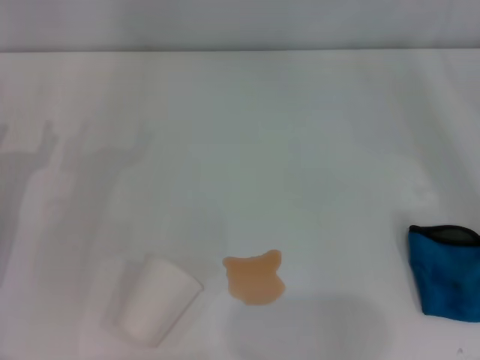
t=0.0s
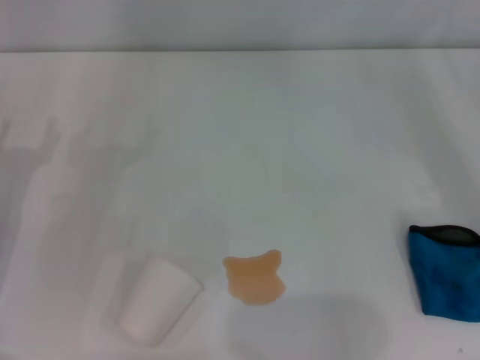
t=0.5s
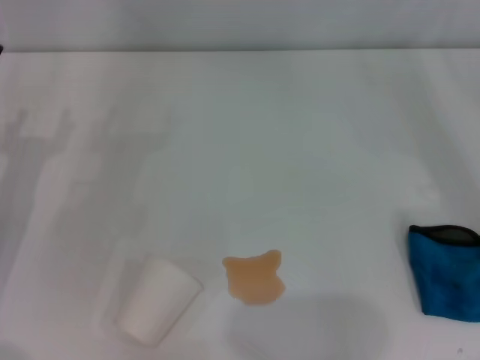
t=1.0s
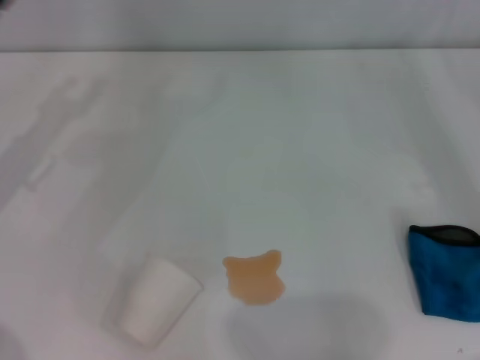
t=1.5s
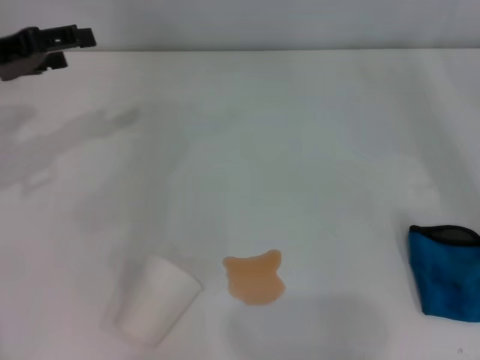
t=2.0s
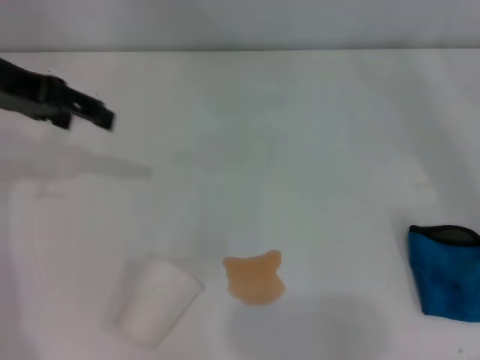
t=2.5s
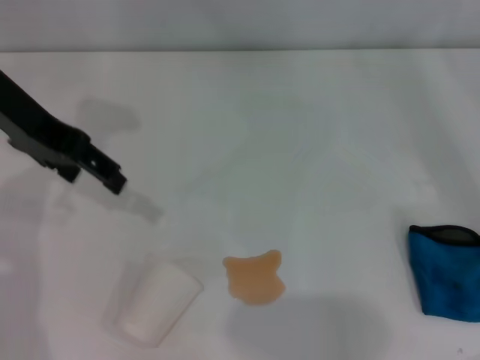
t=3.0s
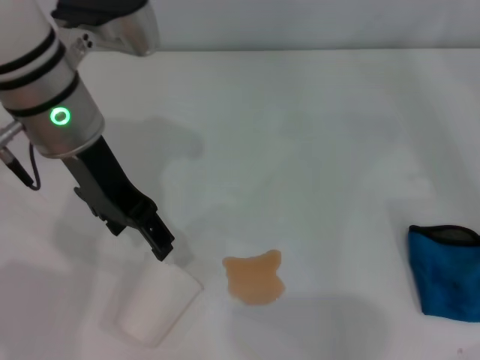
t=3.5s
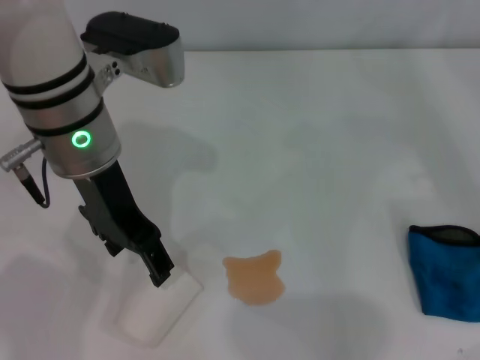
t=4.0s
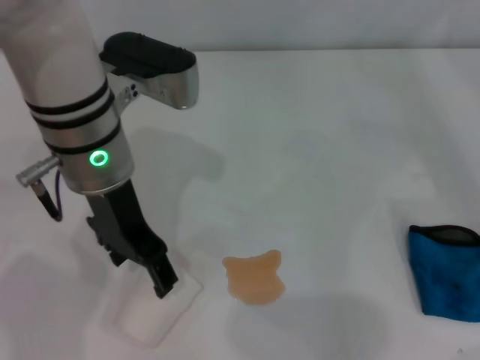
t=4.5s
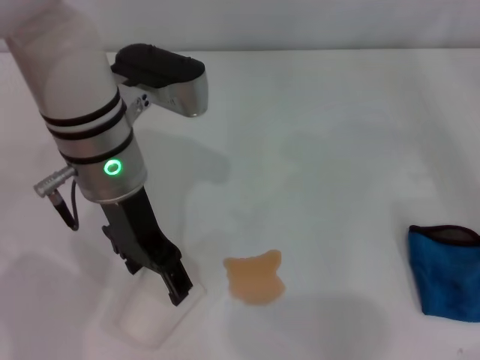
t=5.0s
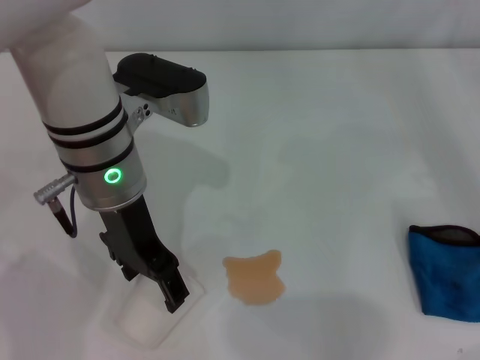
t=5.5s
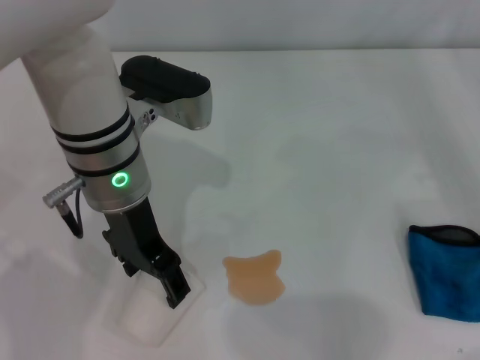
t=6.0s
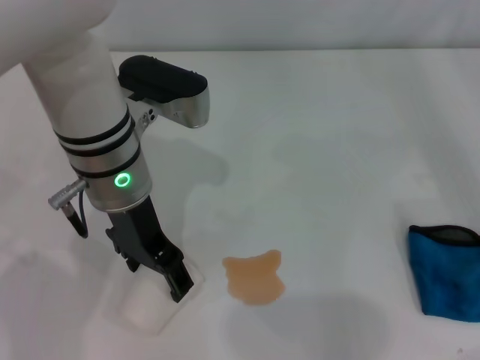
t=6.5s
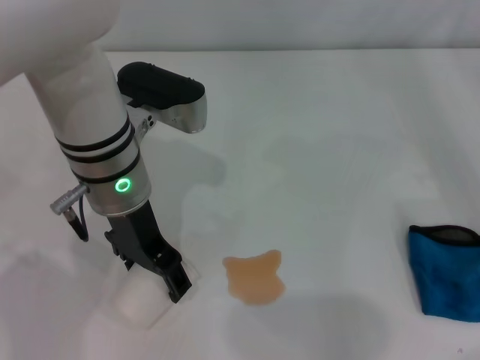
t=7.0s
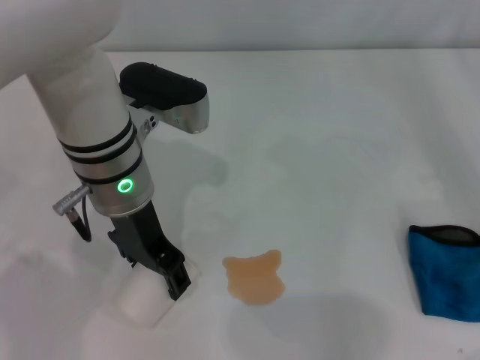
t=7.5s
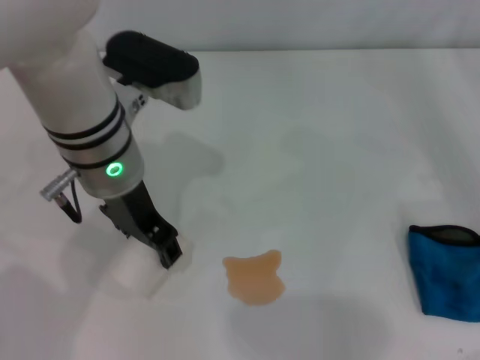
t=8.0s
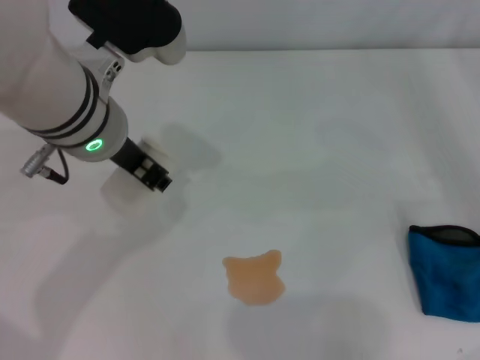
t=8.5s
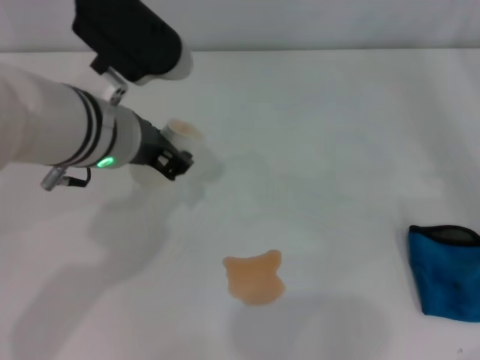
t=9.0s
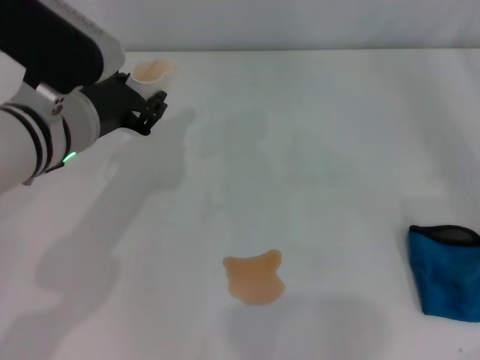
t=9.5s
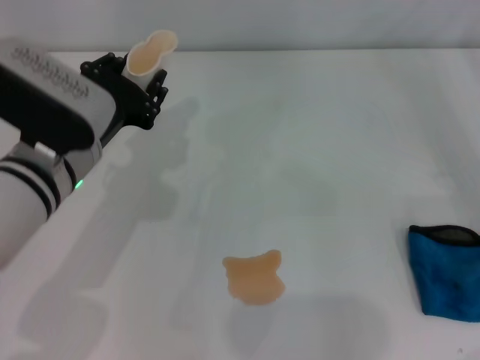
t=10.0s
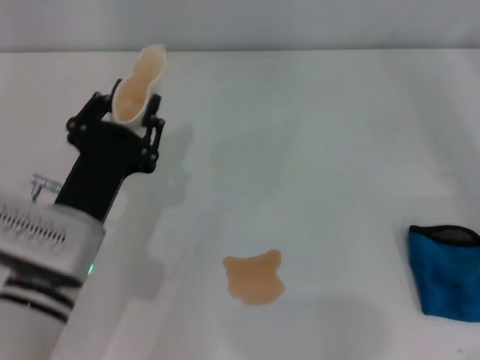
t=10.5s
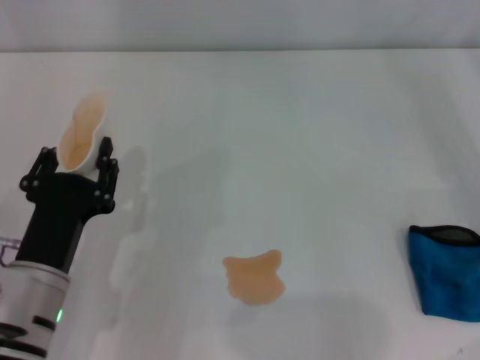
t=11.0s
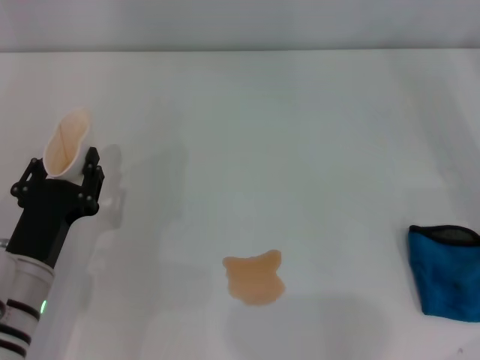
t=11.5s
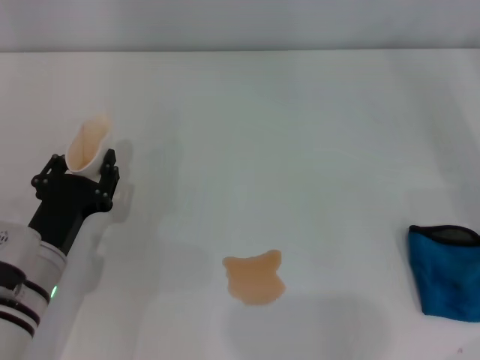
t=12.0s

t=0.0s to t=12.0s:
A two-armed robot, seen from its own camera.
Step, t=0.0s to t=6.5s: Grasp the paper cup with the left gripper.
t=0.0s to t=2.0s: The left gripper heads upward and forward, covering about 15 cm.
t=2.0s to t=4.0s: The left gripper travels to the right by about 20 cm.
t=4.0s to t=6.0s: The grippers move only a little.
t=6.0s to t=8.0s: The left gripper closes its fingers.
t=8.0s to t=10.0s: The left gripper goes some 5 cm to the left, and closes up.
t=10.0s to t=12.0s: The left gripper goes about 15 cm downward and backward.

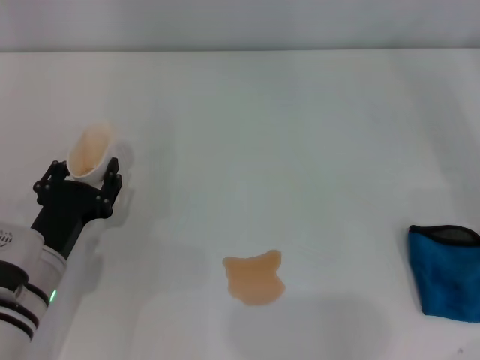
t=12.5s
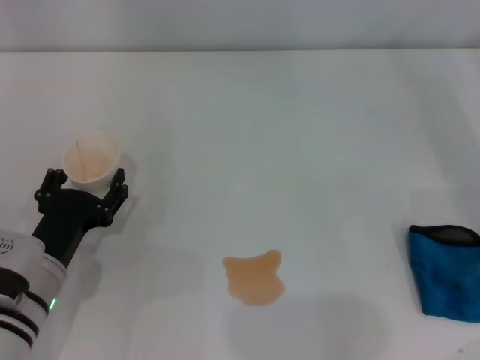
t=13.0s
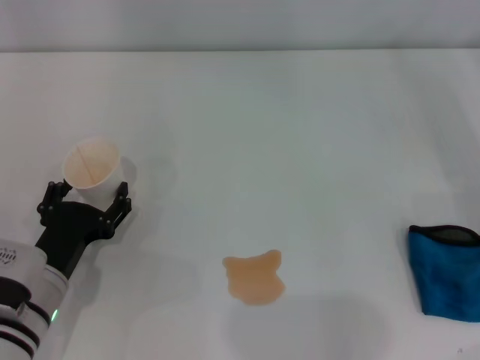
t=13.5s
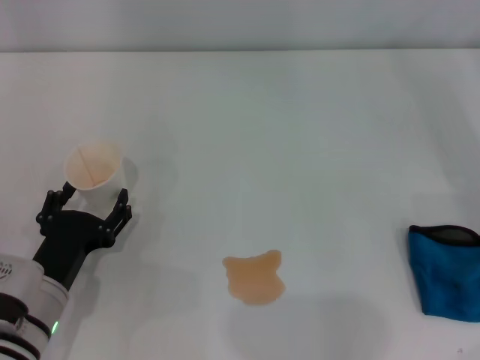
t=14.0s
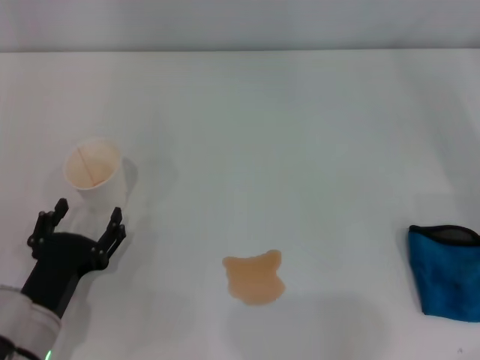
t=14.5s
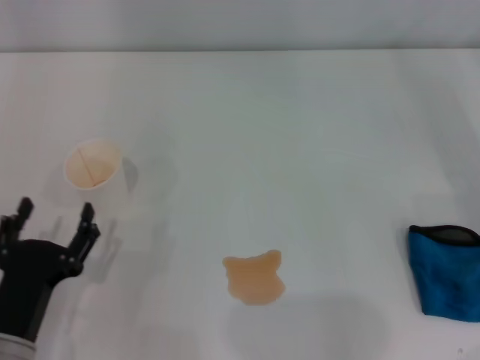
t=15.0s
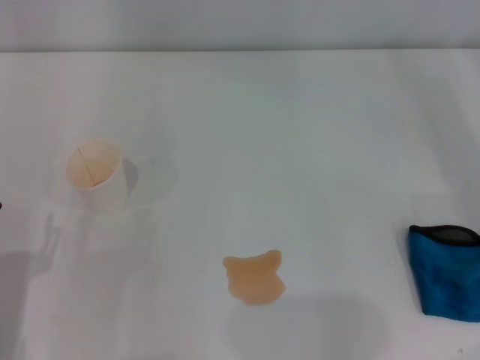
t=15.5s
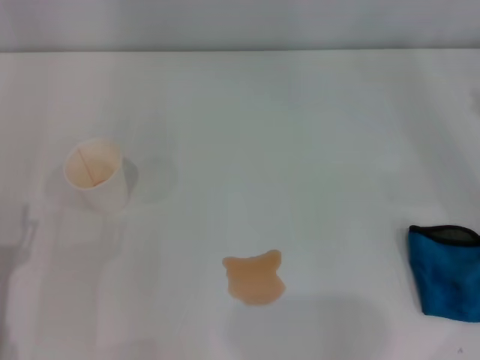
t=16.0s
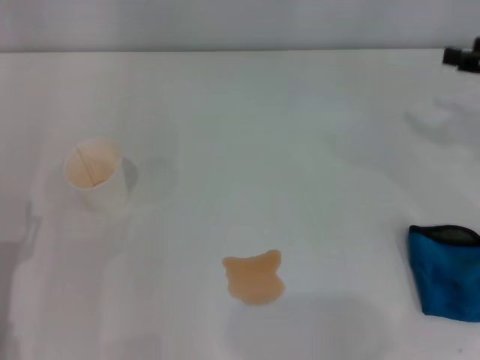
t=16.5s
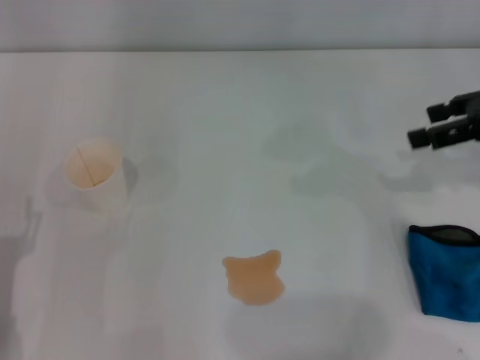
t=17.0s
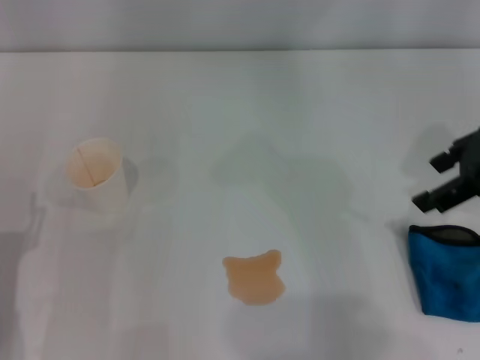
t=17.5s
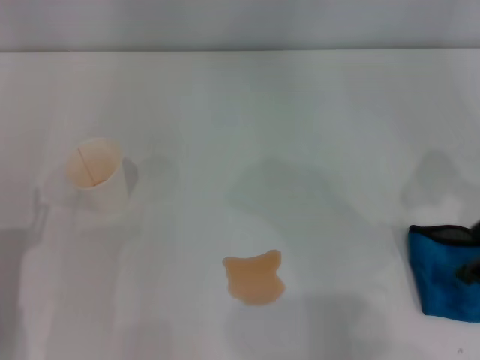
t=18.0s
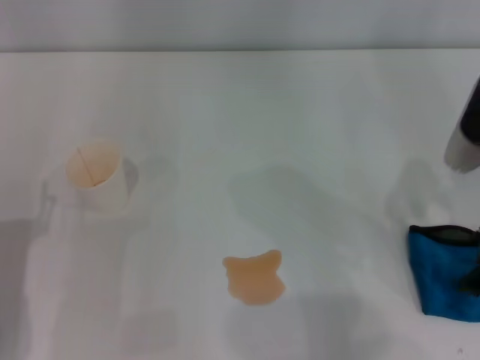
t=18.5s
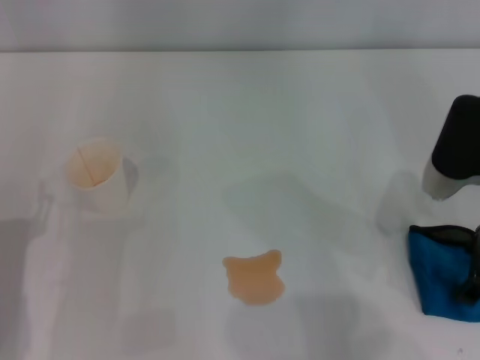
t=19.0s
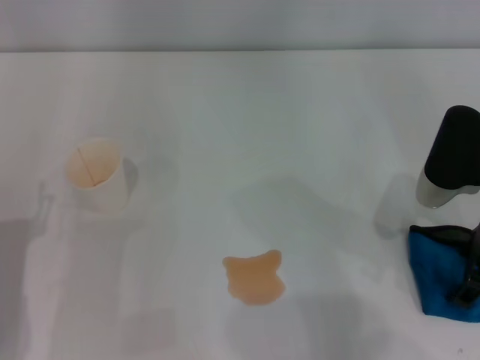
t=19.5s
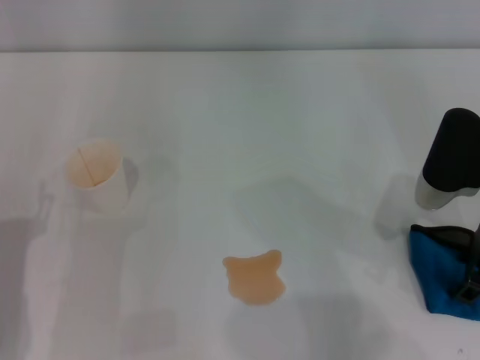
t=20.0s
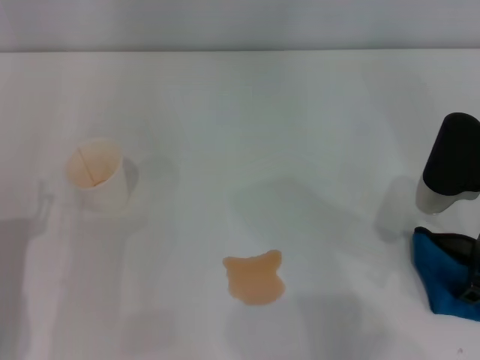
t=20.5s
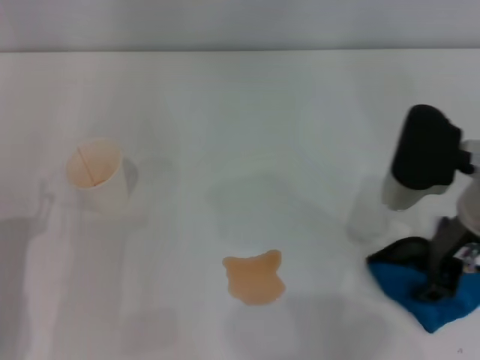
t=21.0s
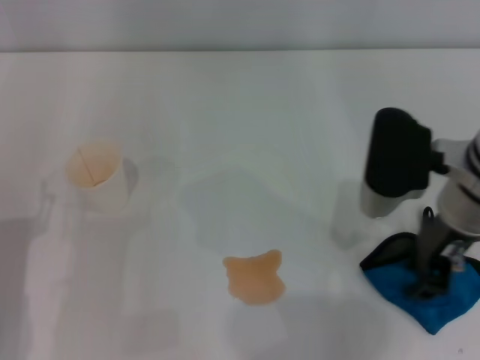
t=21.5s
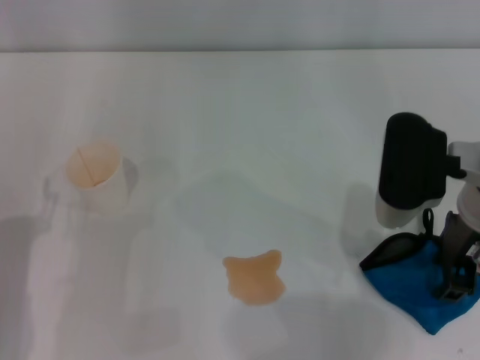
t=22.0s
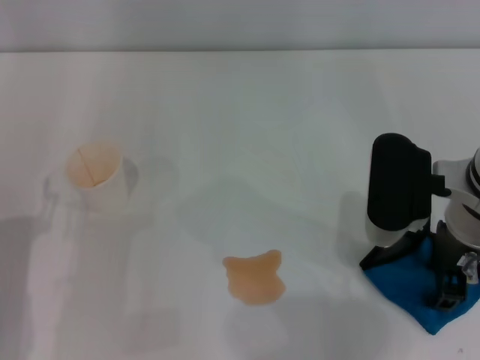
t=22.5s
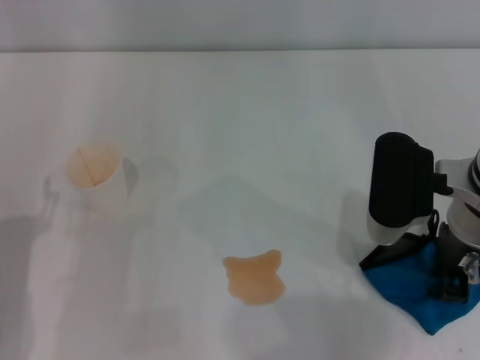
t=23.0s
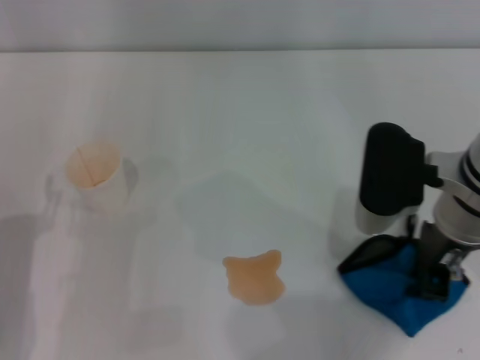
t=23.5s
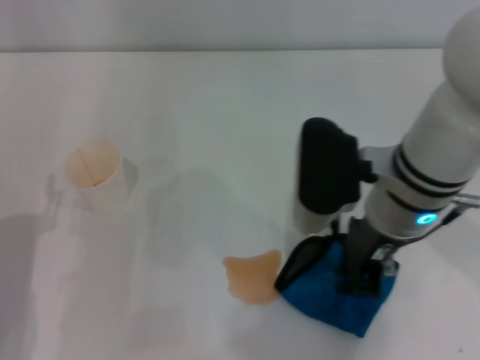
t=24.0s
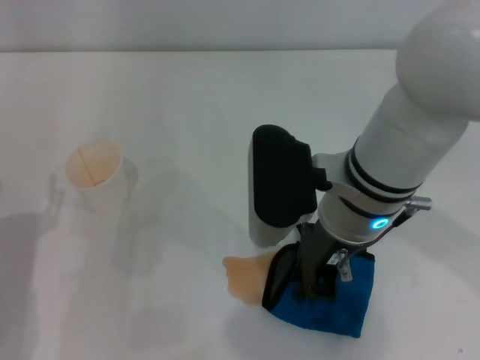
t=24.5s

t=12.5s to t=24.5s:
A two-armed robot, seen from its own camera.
Step, t=13.5s to t=20.0s: Grasp the rag with the right gripper.
t=12.5s to t=14.5s: The left gripper goes about 5 cm backward, and opens.
t=14.5s to t=16.5s: The left gripper moves to the left, about 5 cm.
t=16.5s to t=18.5s: The right gripper moves to the left, some 10 cm.
t=18.5s to t=20.5s: The right gripper closes up.
t=20.5s to t=22.5s: The right gripper moves to the left, about 5 cm.
t=22.5s to t=24.5s: The right gripper heads to the left, covering about 10 cm, and closes up.

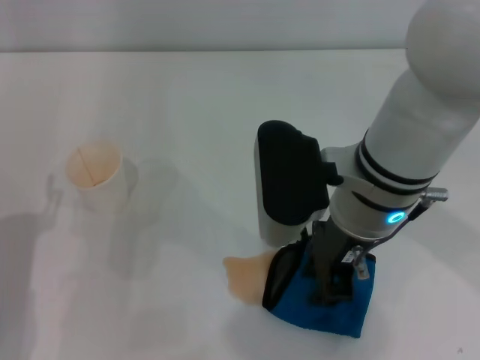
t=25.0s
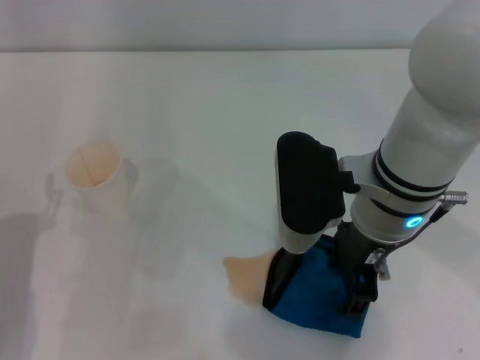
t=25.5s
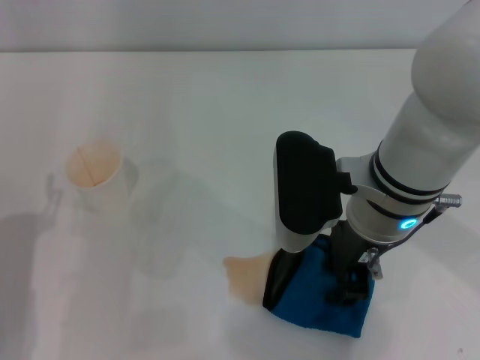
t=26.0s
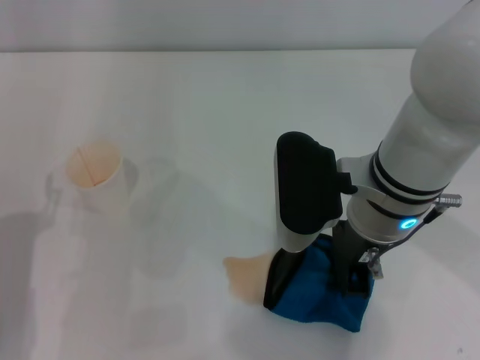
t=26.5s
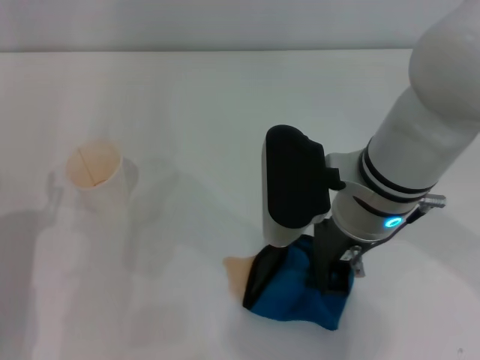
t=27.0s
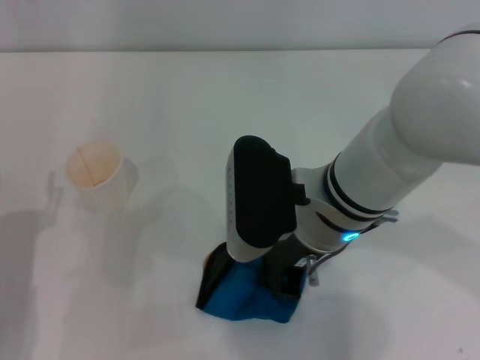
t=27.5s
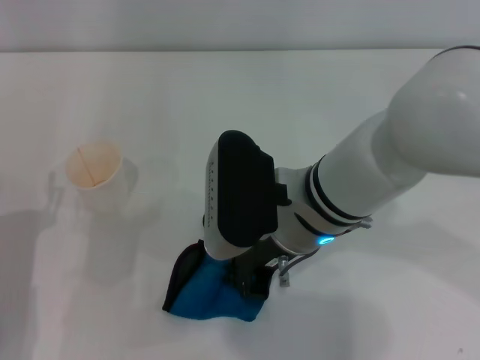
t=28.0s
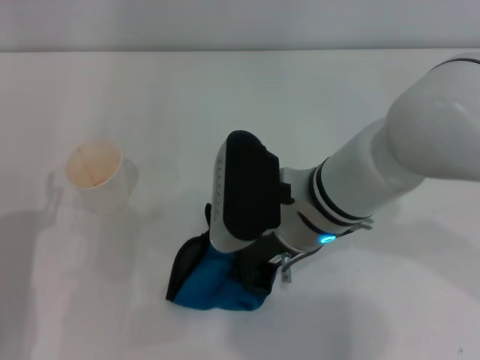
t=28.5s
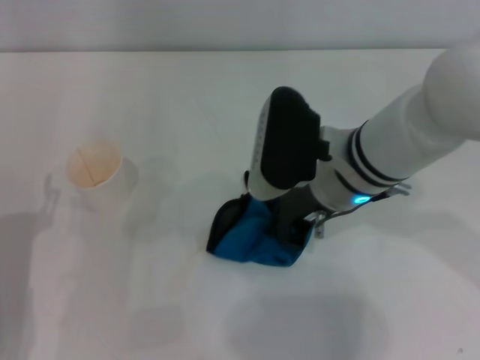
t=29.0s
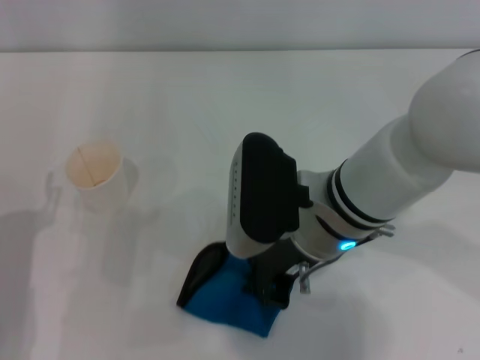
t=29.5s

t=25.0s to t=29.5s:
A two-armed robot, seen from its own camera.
t=25.0s to t=27.0s: The right gripper opens, then closes once more.
t=27.0s to t=29.5s: The grippers make only small movements.
